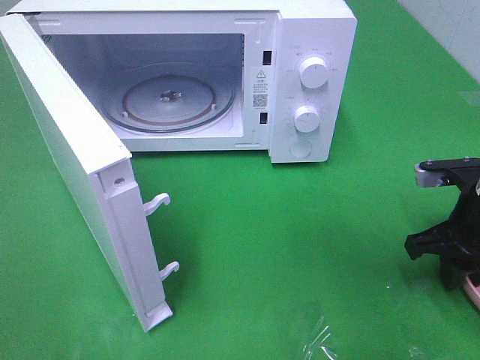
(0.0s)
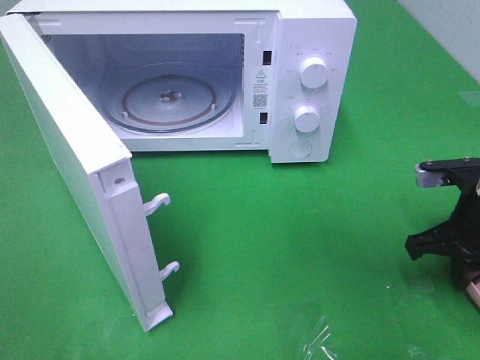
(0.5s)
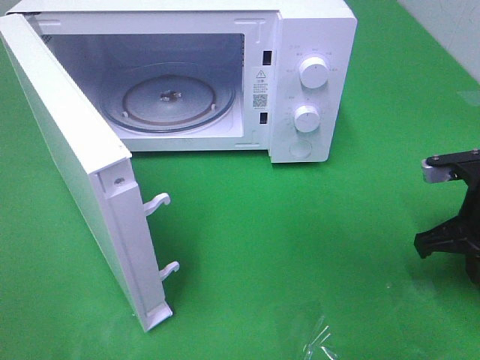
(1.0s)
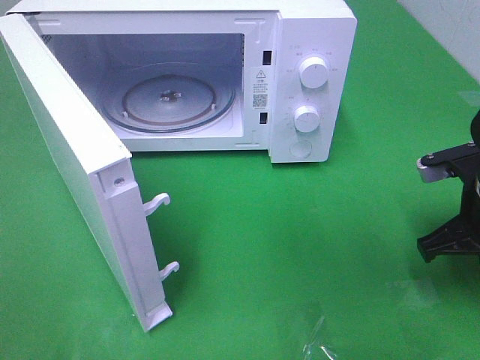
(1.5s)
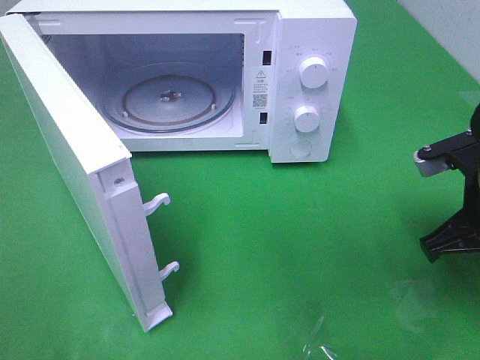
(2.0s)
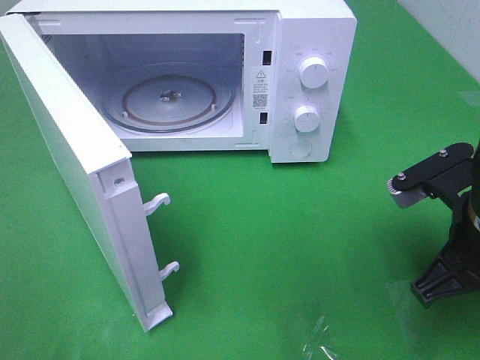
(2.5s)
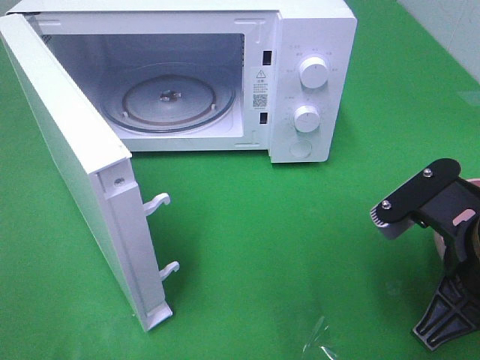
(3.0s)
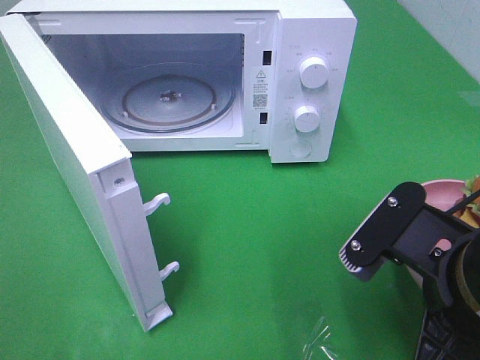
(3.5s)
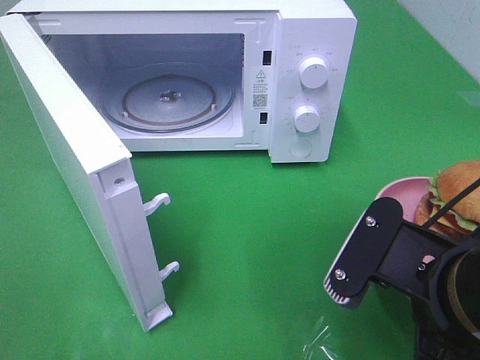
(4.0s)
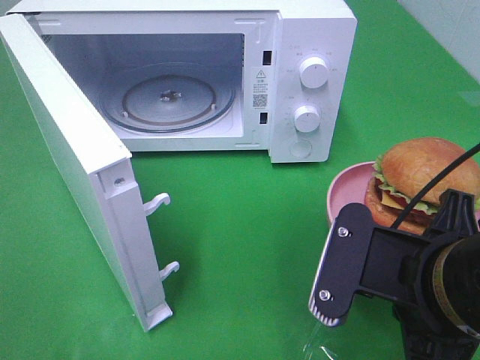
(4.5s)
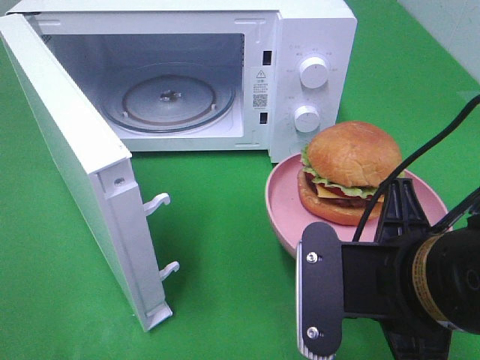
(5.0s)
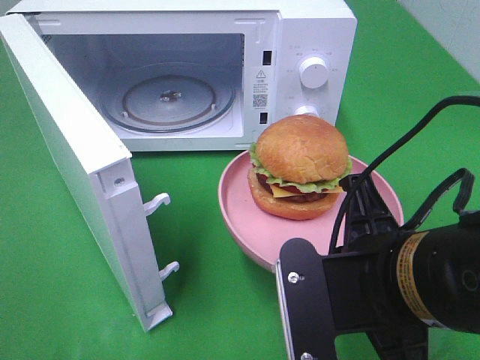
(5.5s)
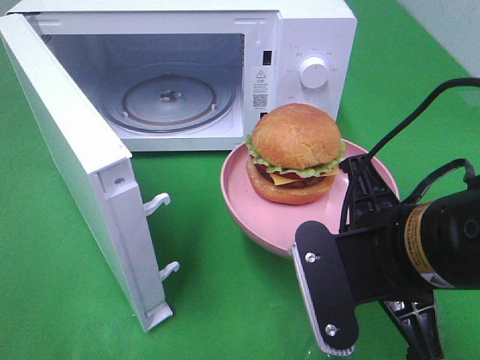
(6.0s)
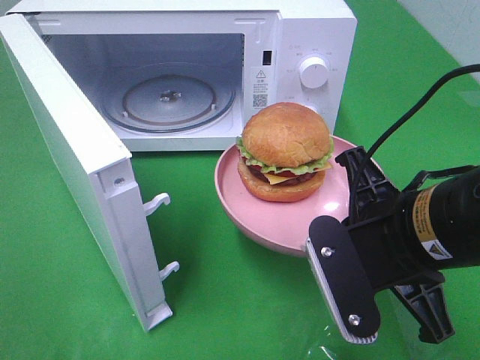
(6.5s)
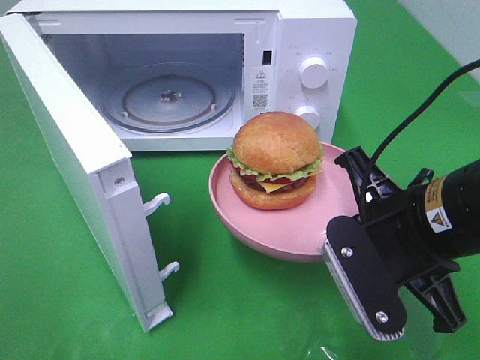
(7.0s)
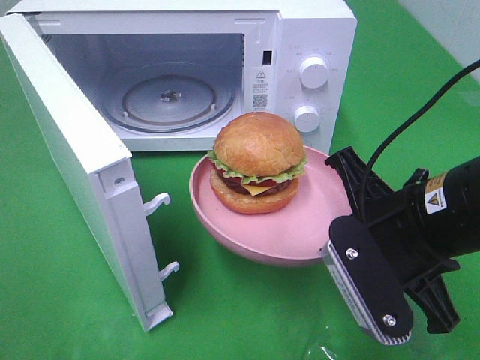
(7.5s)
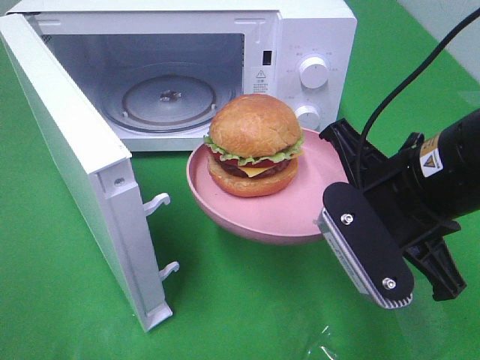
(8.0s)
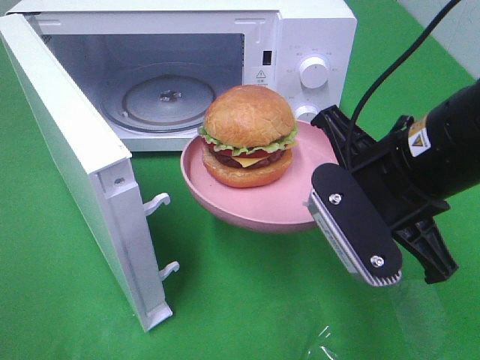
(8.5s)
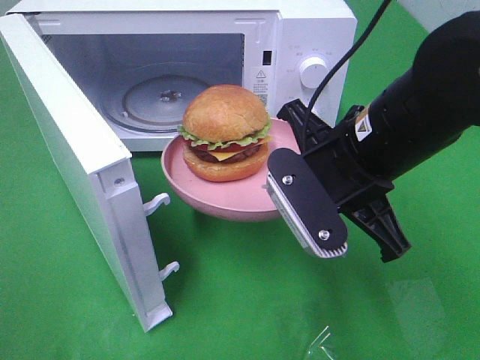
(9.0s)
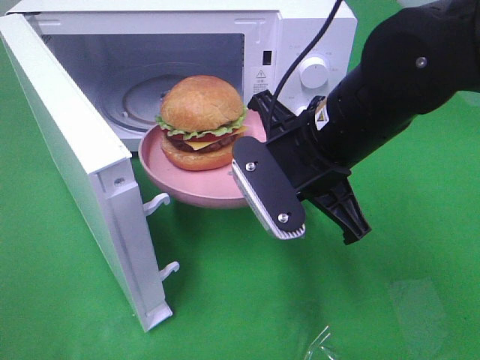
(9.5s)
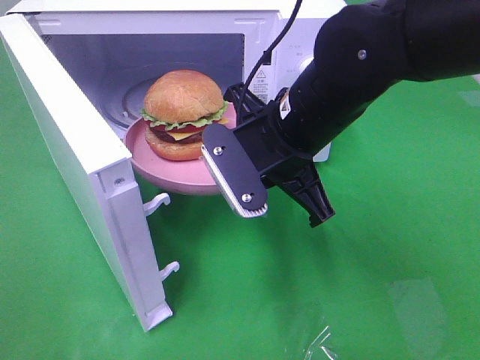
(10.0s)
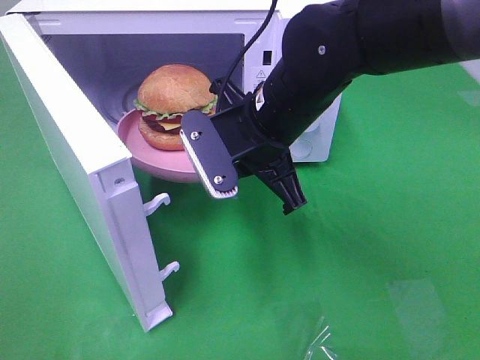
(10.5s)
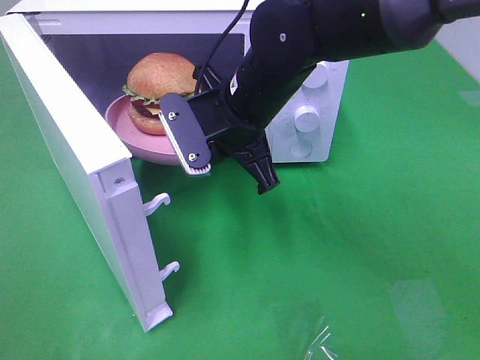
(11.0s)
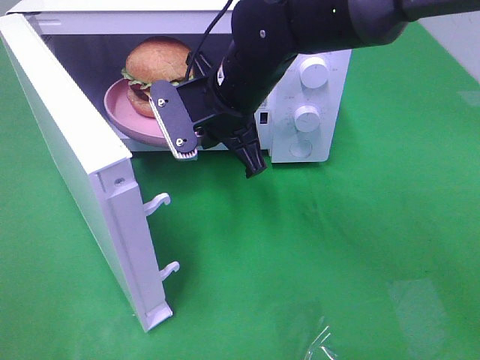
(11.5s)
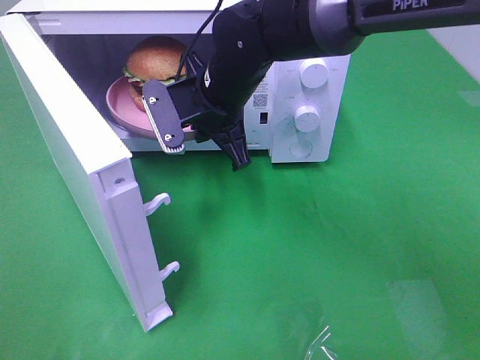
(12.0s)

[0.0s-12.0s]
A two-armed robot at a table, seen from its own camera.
Task of the whole recording: Heat the burger.
0.0s to 2.0s: The right gripper changes place by about 5 cm, and closes its fingers.
2.0s to 4.0s: The right gripper is displaced backward and to the left by about 15 cm.
6.0s to 8.0s: The right gripper shifts by some 5 cm.
8.0s to 10.0s: The right gripper is displaced to the left and forward by about 10 cm.
10.0s to 12.0s: The right gripper shifts approximately 10 cm forward and to the left.

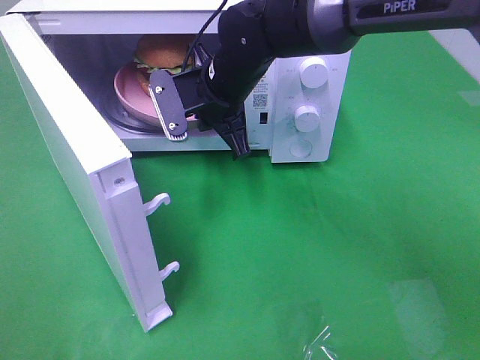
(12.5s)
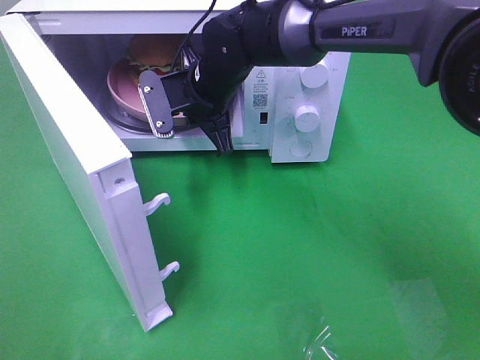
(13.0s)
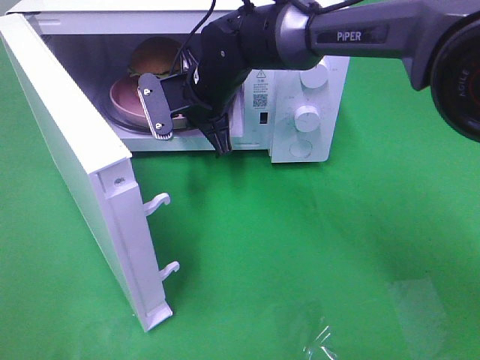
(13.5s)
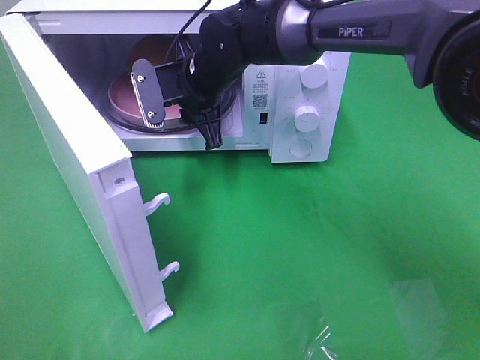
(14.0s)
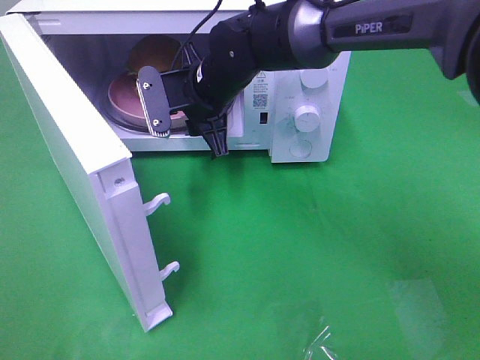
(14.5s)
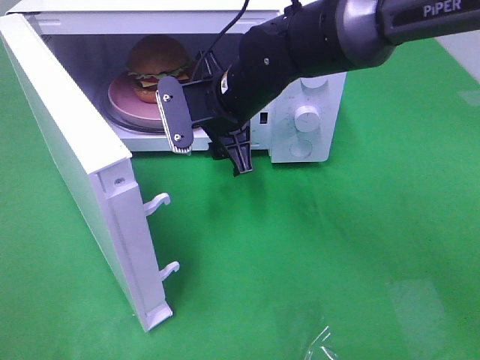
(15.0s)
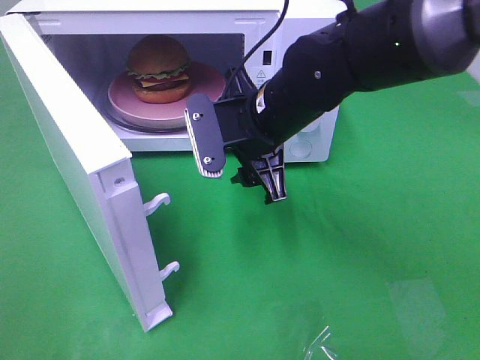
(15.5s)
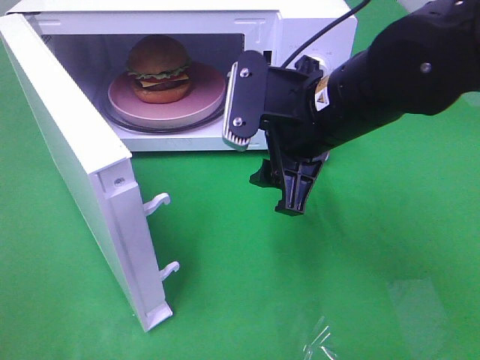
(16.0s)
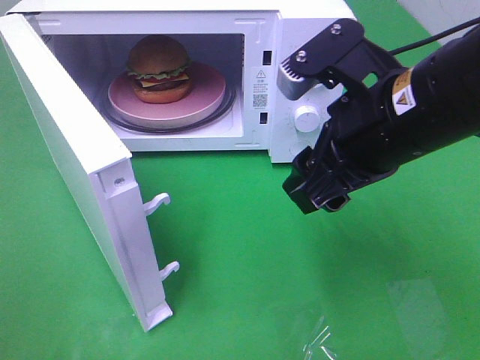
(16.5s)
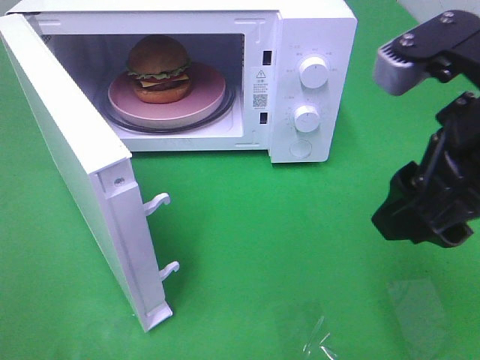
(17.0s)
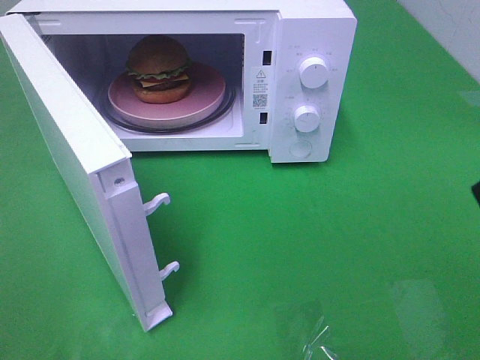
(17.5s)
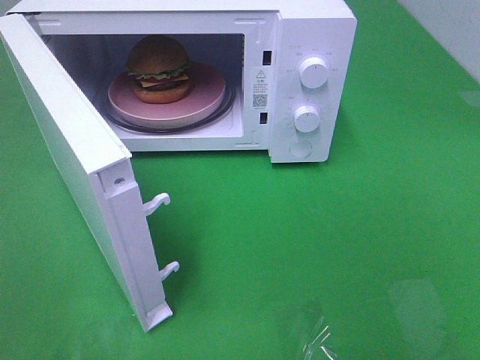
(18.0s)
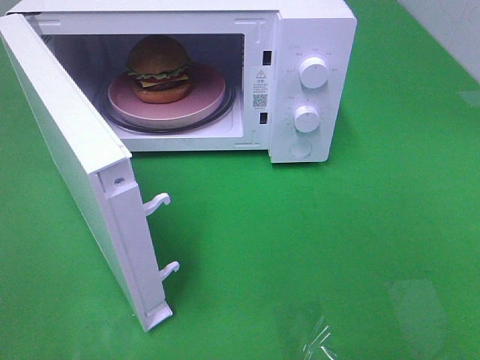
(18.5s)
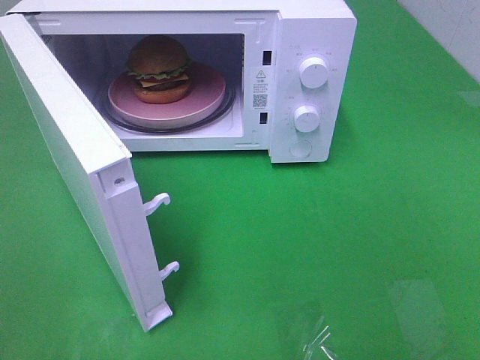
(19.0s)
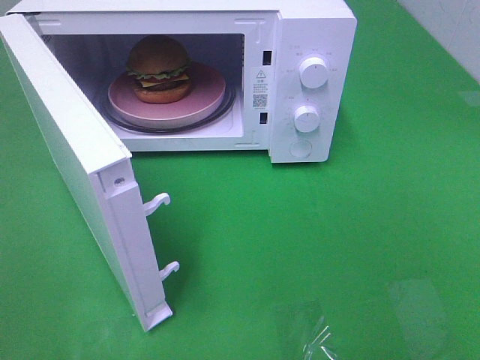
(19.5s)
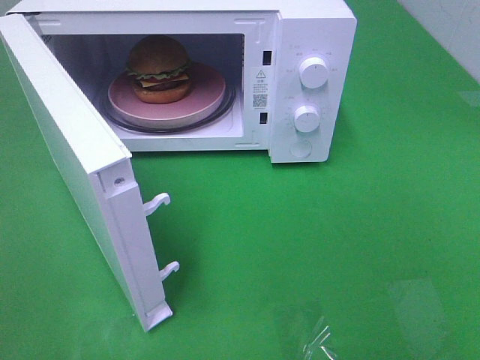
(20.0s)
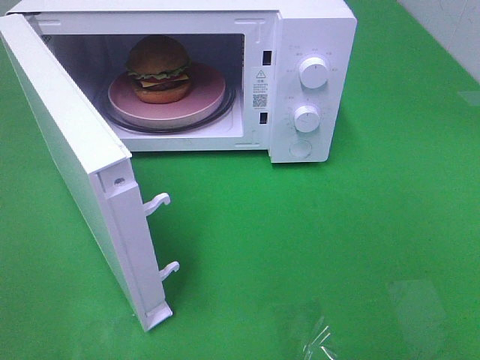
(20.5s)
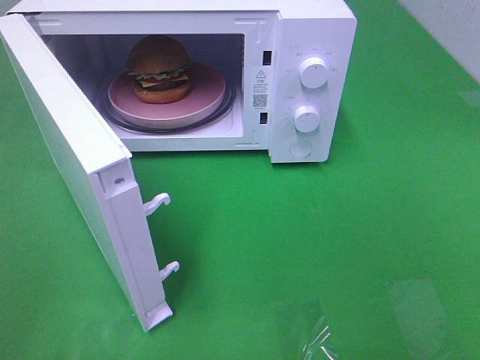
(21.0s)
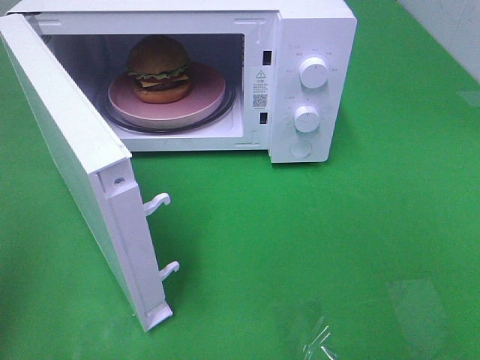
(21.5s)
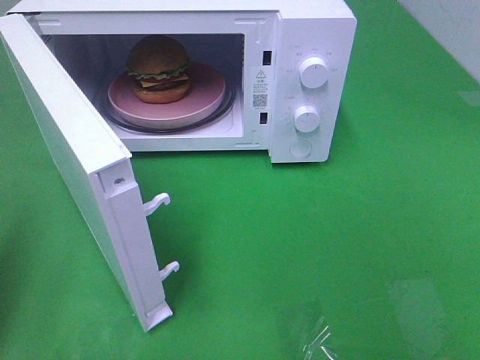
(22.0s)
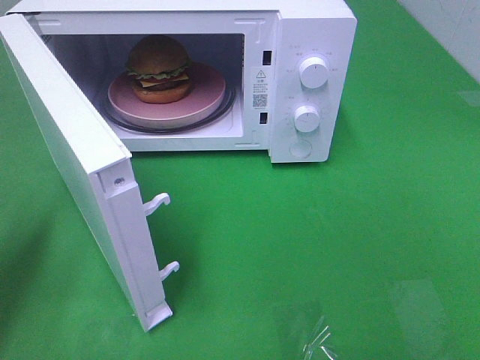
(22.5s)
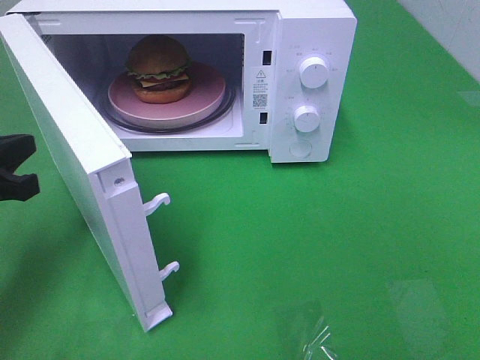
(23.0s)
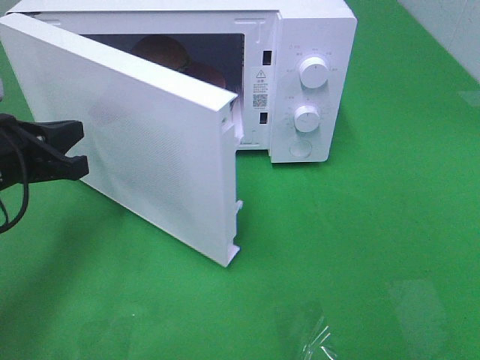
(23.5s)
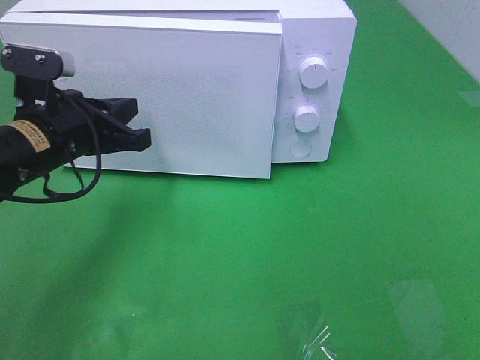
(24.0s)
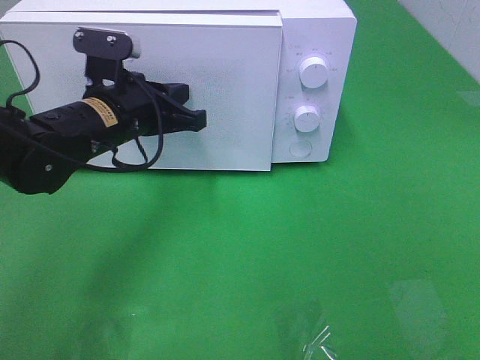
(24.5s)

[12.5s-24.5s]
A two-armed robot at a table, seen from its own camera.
Task of the whole recording: Heat the burger.
Step, 12.5s to 14.5s: Right hand: place the plate in the microwave.
12.5s to 14.5s: The right gripper opens its fingers.
14.5s to 16.5s: The right gripper heads backward, to the right and upward, covering some 25 cm.
16.5s to 18.5s: The right gripper is displaced backward and to the right by approximately 25 cm.
20.5s to 22.5s: The left gripper moves forward, approximately 20 cm, and closes.
22.5s to 24.5s: The left gripper heads to the right and forward, covering roughly 25 cm.

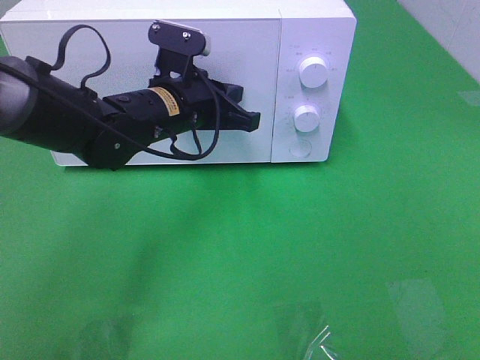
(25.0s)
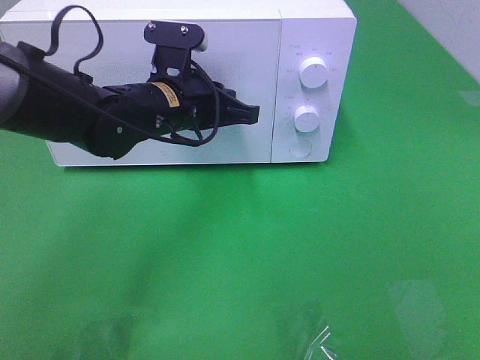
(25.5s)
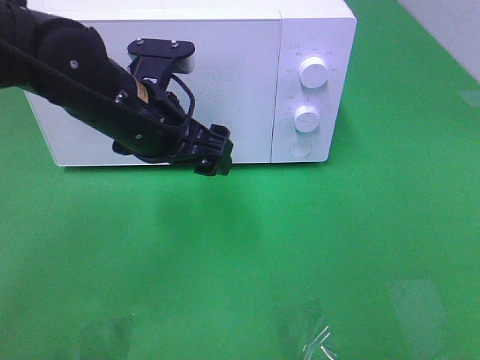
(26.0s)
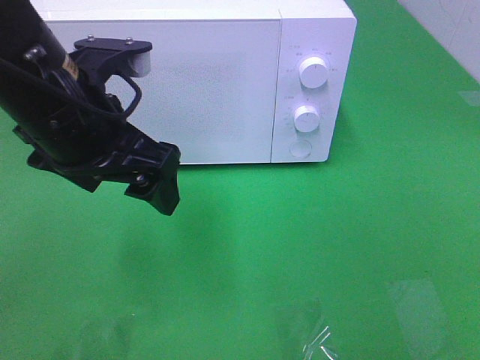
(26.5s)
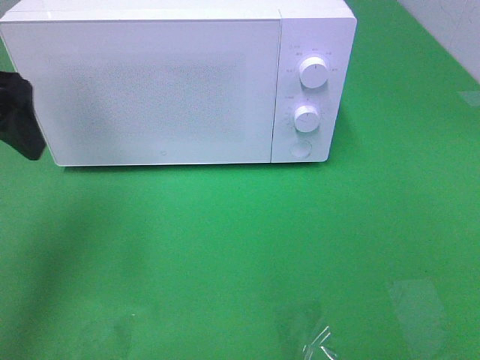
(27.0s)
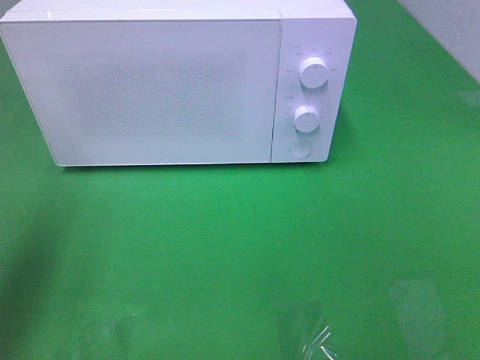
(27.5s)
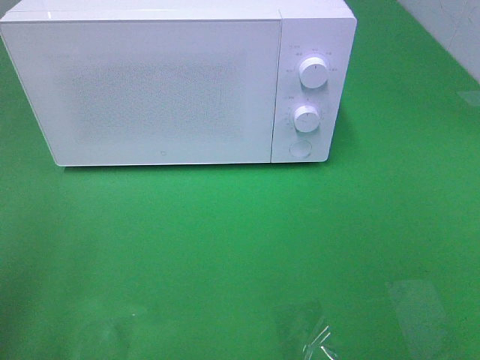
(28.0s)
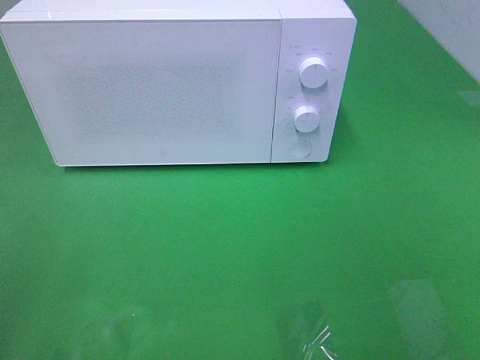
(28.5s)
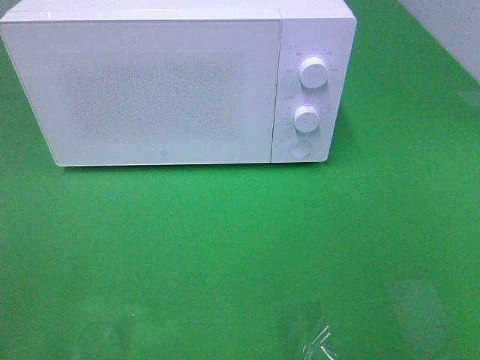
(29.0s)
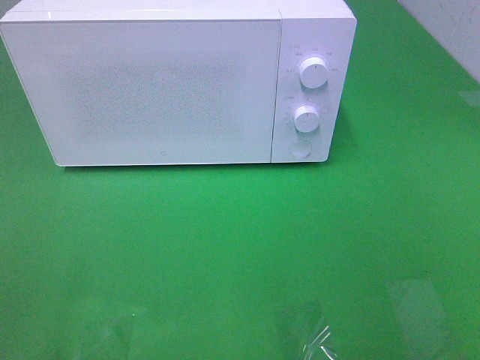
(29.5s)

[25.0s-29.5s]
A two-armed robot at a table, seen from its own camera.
Task of the whole recording: Heat the burger.
25.0s to 27.0s: The left gripper travels to the left, upward and backward by roughly 25 cm, and opens.
27.0s to 29.5s: The left gripper goes about 25 cm backward.
